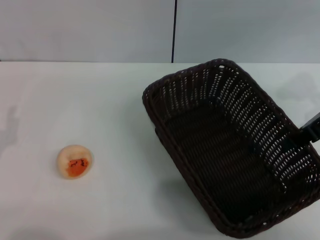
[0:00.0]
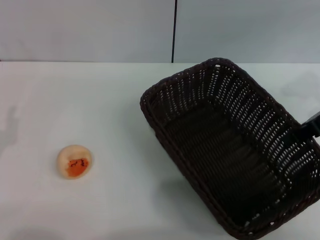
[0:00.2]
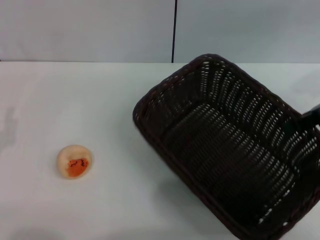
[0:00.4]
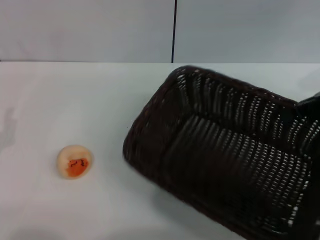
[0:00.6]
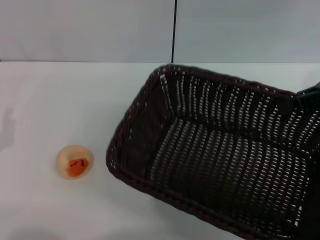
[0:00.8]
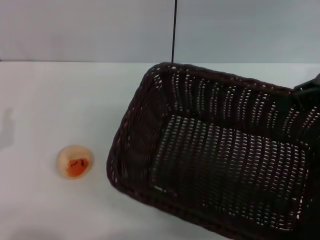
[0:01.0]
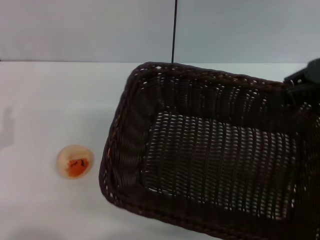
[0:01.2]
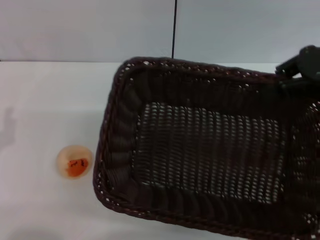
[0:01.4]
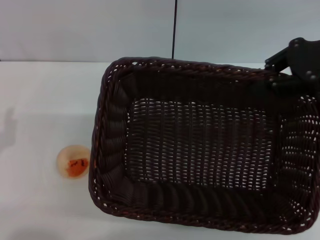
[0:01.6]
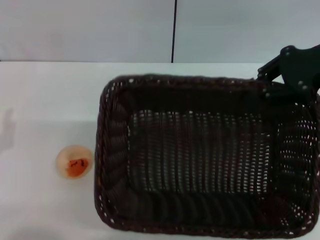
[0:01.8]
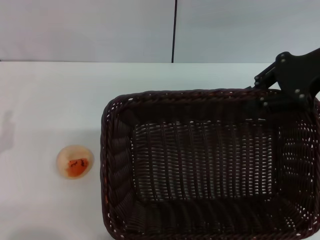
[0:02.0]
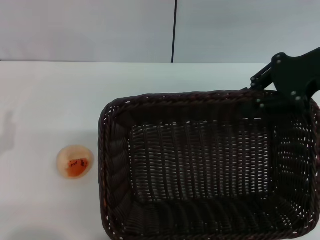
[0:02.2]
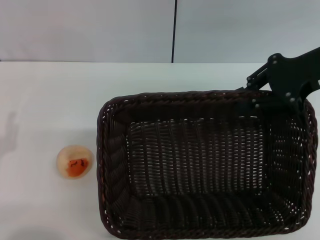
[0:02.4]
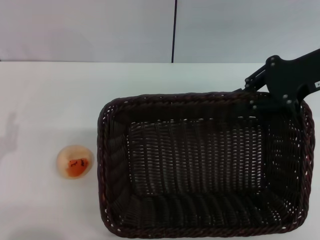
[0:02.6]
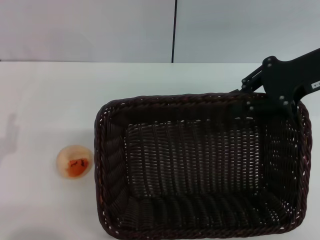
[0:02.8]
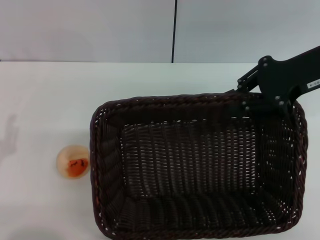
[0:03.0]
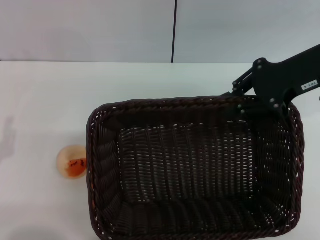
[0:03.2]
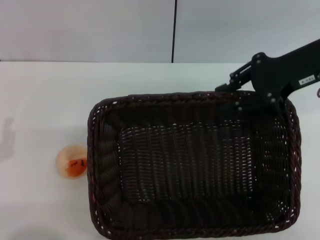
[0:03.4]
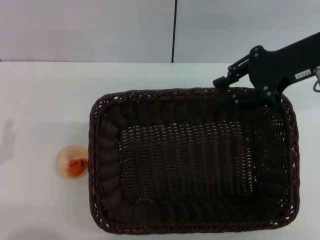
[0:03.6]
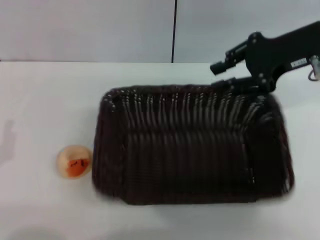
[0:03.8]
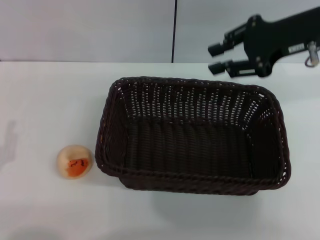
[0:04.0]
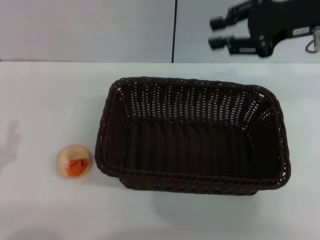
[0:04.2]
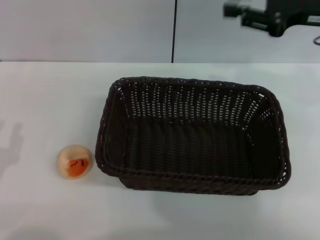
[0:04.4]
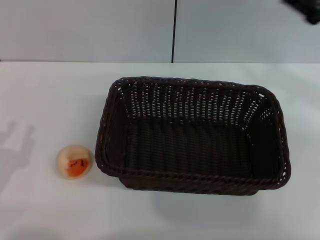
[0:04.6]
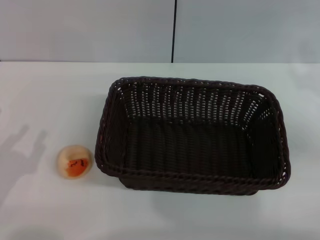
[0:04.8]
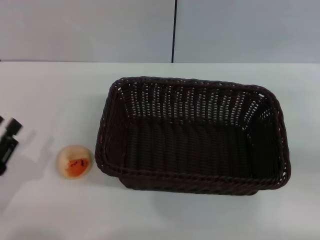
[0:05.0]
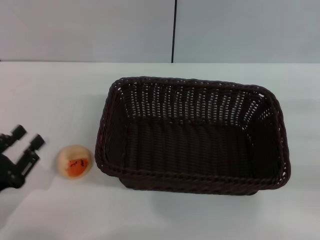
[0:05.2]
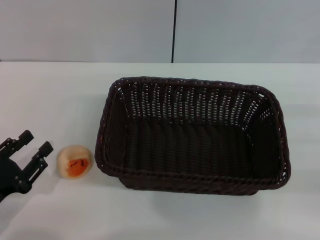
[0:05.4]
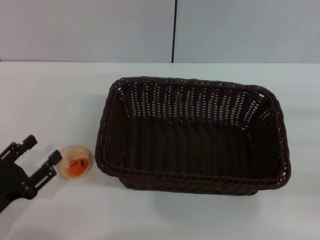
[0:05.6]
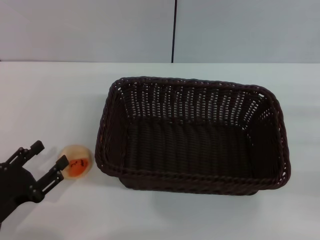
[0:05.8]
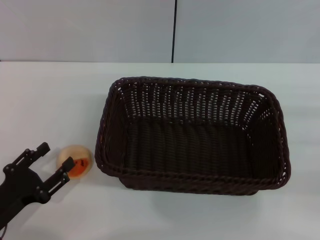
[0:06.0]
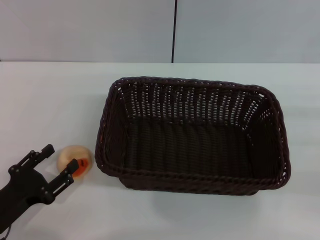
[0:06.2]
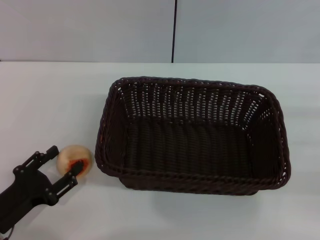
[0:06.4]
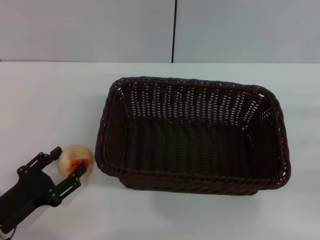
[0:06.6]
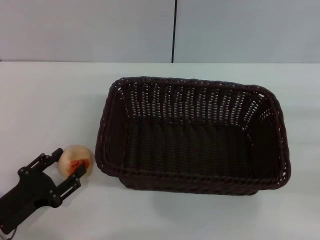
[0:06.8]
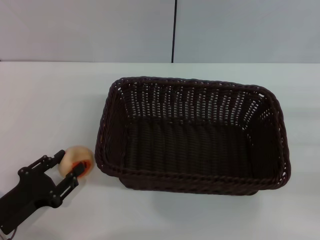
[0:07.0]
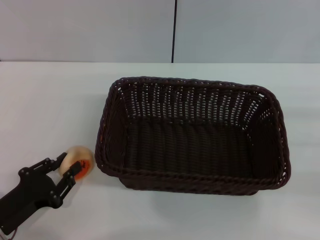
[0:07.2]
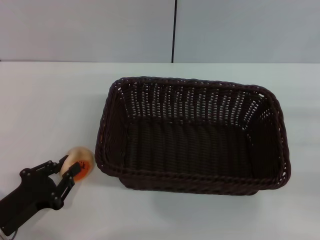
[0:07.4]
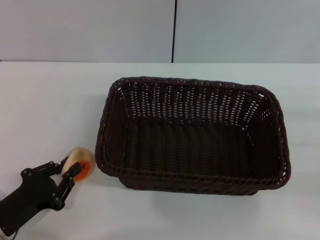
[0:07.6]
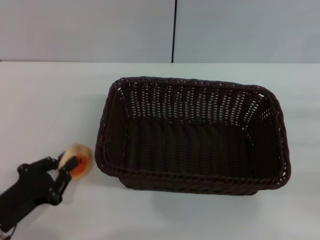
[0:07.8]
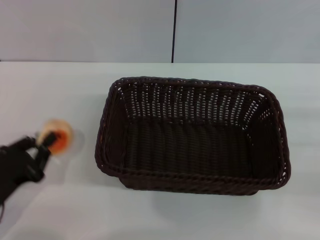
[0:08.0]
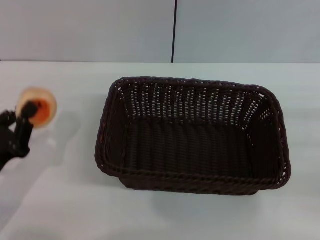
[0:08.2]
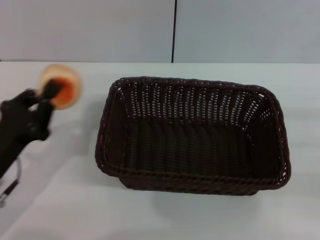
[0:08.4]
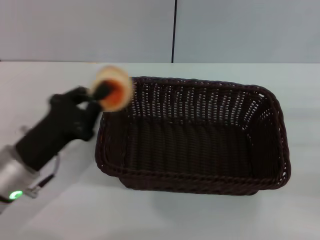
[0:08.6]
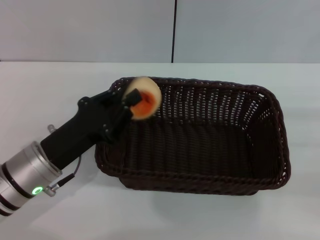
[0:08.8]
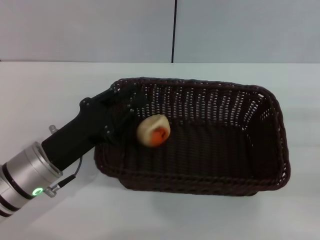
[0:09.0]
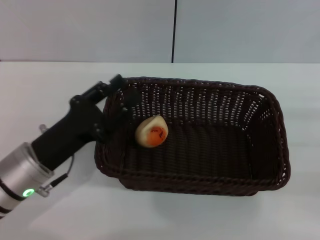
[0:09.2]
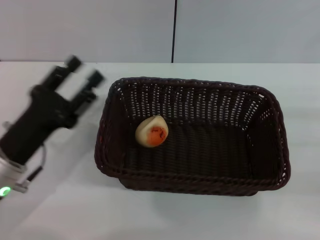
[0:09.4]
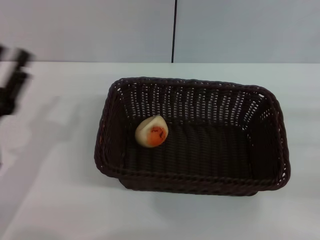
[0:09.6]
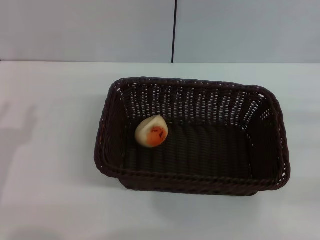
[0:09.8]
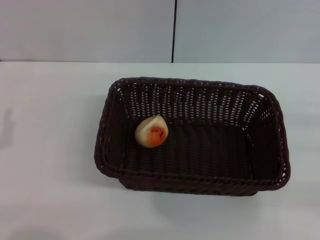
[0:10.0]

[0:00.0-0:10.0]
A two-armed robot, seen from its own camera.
Step, 0:00.0 to 0:04.0: Move the basket to the center of view with the right gripper.
Step, 0:04.2 to 0:08.0: Pick up the egg yolk pastry with the left gripper.
Step, 0:08.2 to 0:09.2: Place the egg yolk pastry into the basket with the left gripper.
0:00.0 to 0:01.4: The right gripper is displaced upward by about 5 cm.
0:01.4 to 0:02.8: There are only small adjustments of the grippers.
0:04.2 to 0:05.8: The left gripper ends up about 5 cm from where it was. The right gripper heads to the right, backward and downward, covering roughly 25 cm.
0:05.8 to 0:07.2: The left gripper closes.
0:07.2 to 0:08.6: The left gripper goes approximately 10 cm forward, upward and to the right, and closes up.
0:08.6 to 0:10.0: The left gripper shifts approximately 10 cm to the left and backward, and opens.

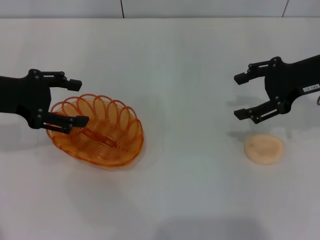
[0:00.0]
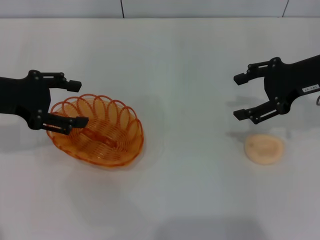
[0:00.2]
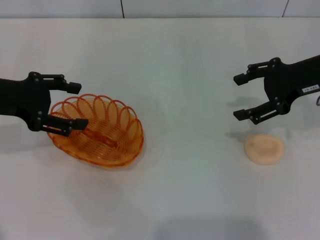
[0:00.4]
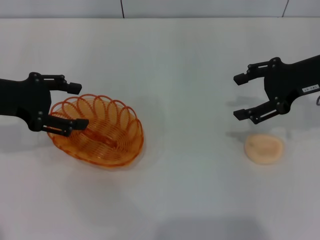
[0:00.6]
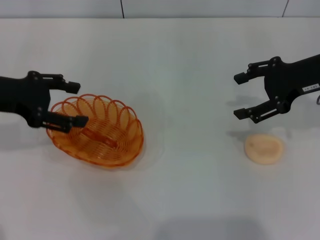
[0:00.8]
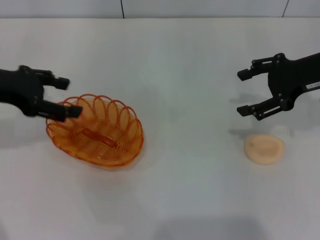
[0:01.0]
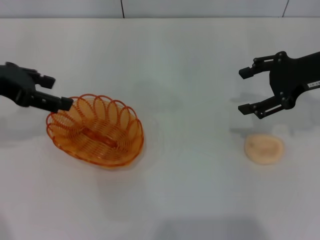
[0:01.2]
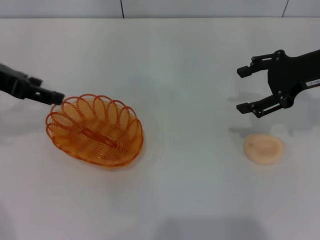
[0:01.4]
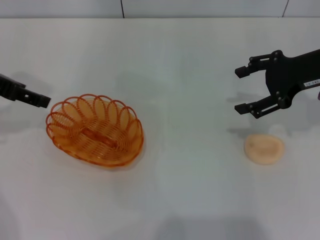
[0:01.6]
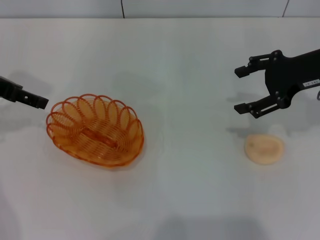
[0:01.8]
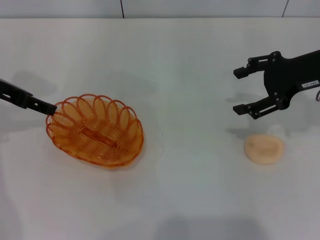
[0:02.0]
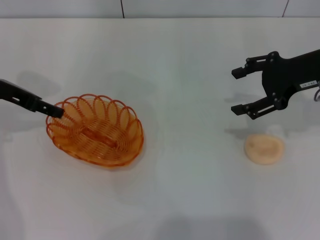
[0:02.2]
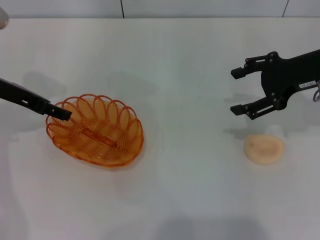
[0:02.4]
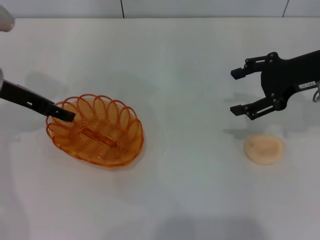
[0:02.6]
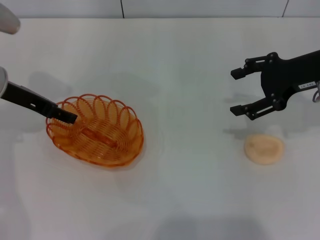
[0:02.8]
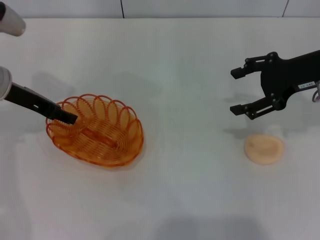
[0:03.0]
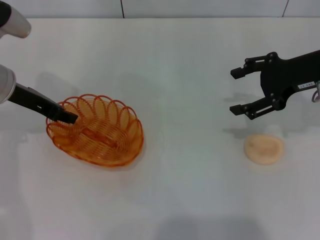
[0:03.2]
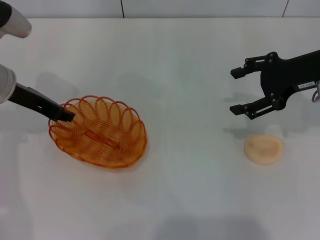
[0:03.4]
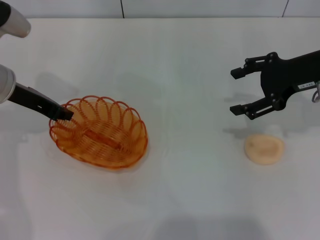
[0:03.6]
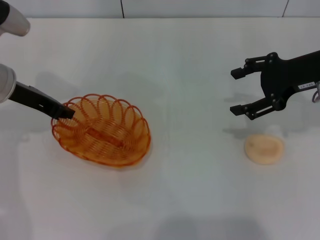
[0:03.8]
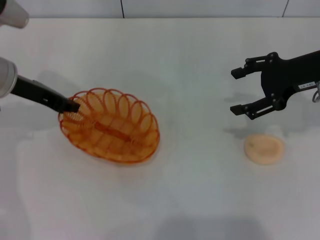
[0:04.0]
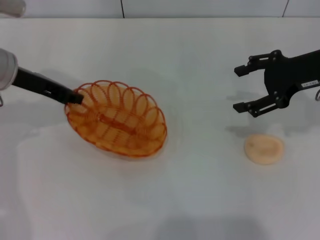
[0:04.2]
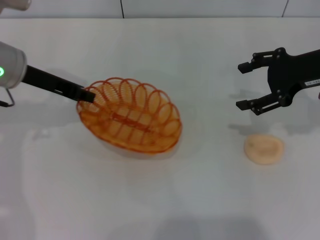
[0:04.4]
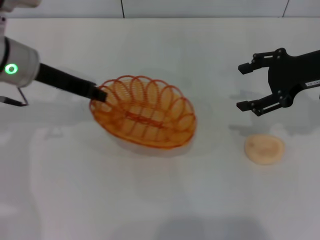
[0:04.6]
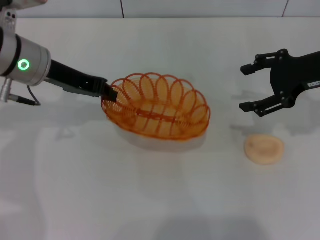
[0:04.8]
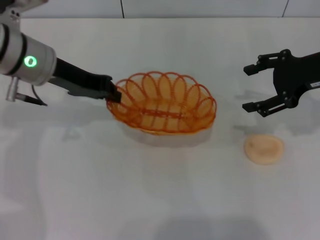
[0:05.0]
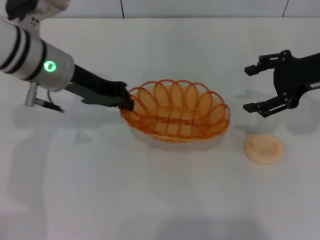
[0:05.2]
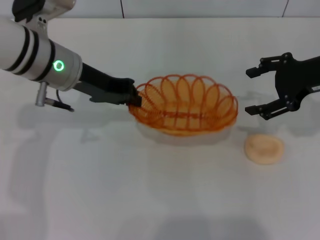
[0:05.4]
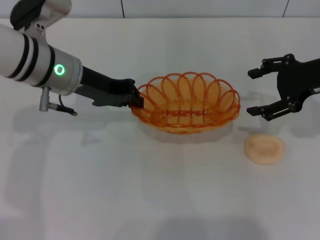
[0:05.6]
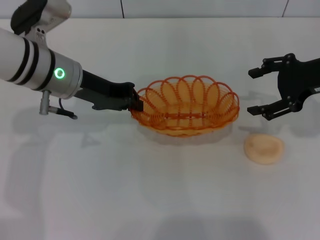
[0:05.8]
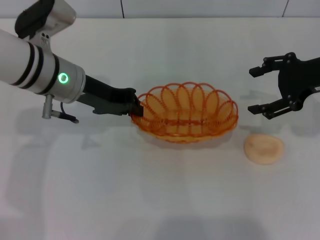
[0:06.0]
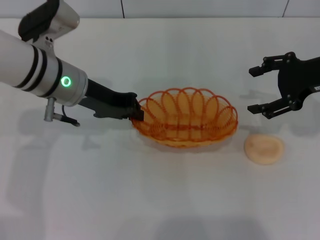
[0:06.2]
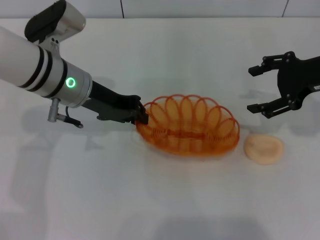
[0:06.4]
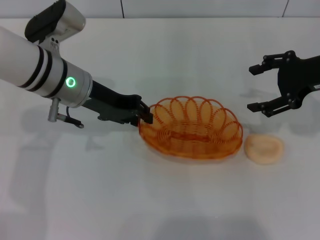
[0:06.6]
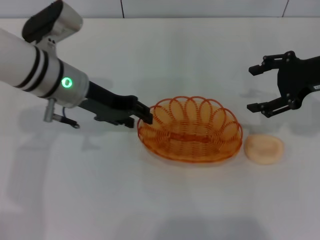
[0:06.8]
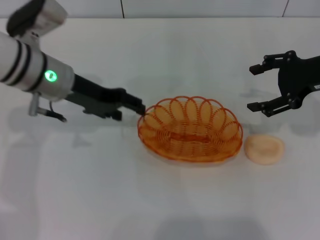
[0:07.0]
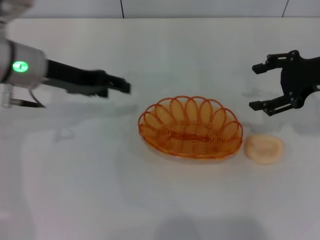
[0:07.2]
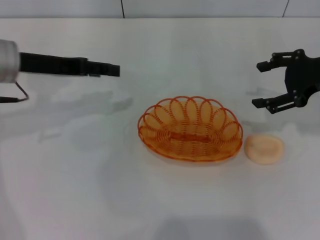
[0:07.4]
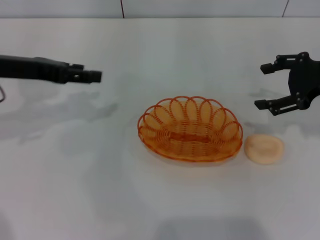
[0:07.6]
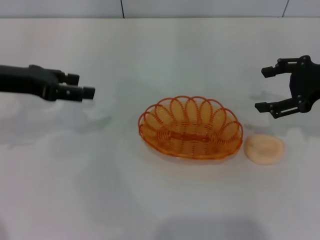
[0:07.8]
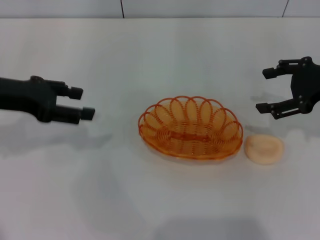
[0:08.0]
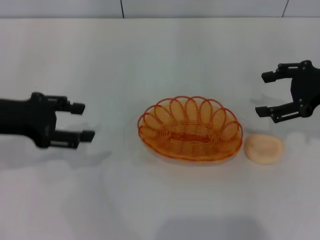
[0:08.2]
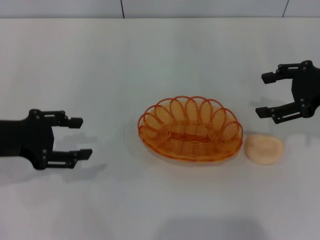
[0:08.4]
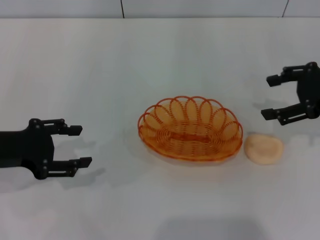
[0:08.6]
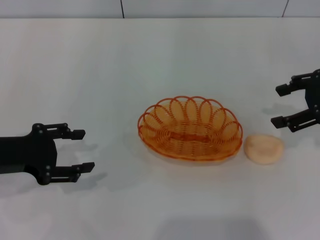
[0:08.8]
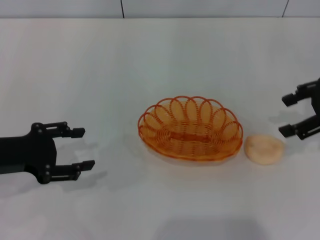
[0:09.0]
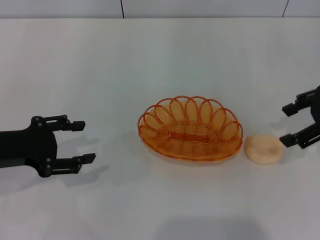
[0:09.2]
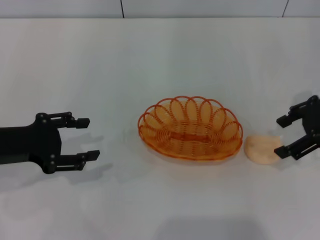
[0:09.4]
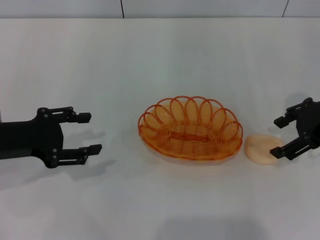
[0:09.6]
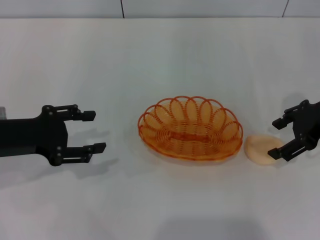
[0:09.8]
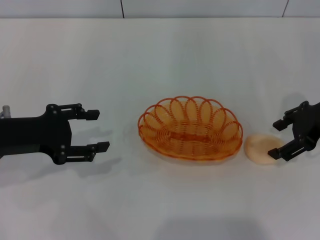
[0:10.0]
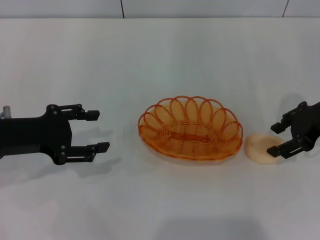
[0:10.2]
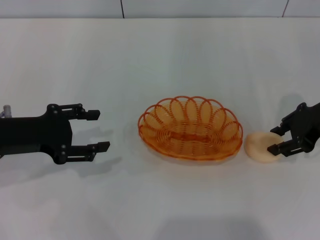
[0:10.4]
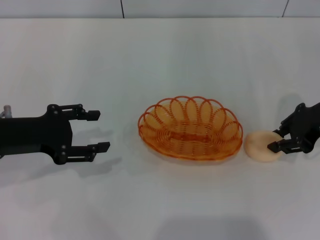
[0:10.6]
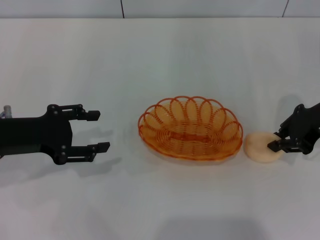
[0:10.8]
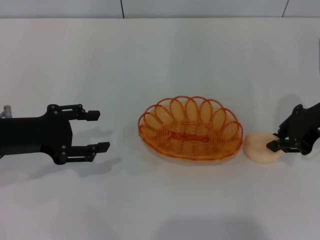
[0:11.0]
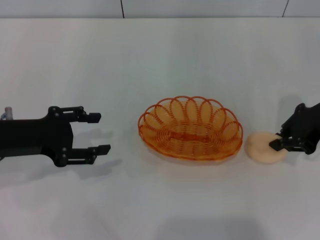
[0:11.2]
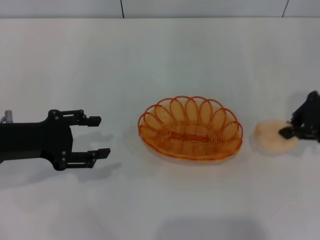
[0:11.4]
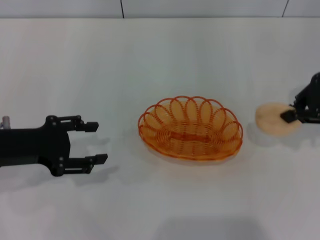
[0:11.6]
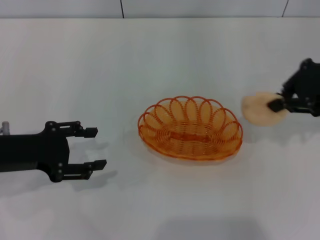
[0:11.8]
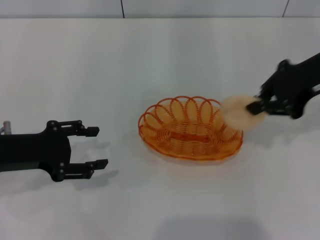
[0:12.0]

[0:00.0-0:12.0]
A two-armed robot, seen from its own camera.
Step, 0:00.0 to 0:04.4: Pick up the basket with the left gripper.
Step, 0:04.6 to 0:07.4: Place the basket in the center of view with the left gripper.
Step, 0:07.8 to 0:11.4: Pick up the egg yolk pastry with the right gripper.
0:00.0 to 0:01.6: The left gripper changes place by about 5 cm.
0:01.6 to 0:03.0: The left gripper moves downward, about 5 cm.
0:03.0 to 0:04.4: The left gripper closes up.
0:04.4 to 0:06.0: The left gripper shifts roughly 5 cm to the right.
0:06.0 to 0:07.6: The left gripper moves to the left, approximately 10 cm, and opens.
0:07.6 to 0:09.0: The left gripper travels backward and downward by some 10 cm.
0:09.0 to 0:10.4: The right gripper shifts by roughly 5 cm.
0:10.4 to 0:12.0: The right gripper goes roughly 10 cm upward, and closes.
